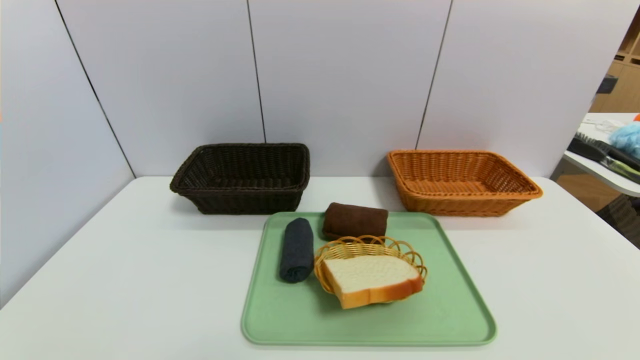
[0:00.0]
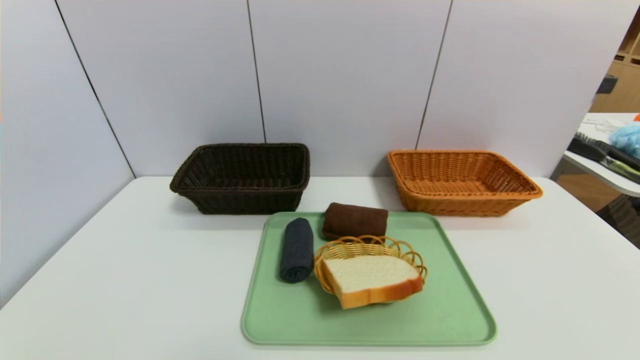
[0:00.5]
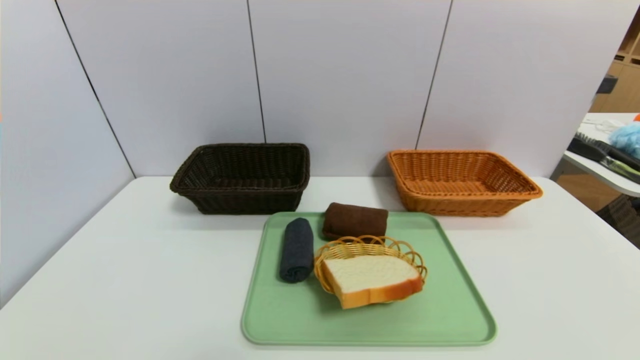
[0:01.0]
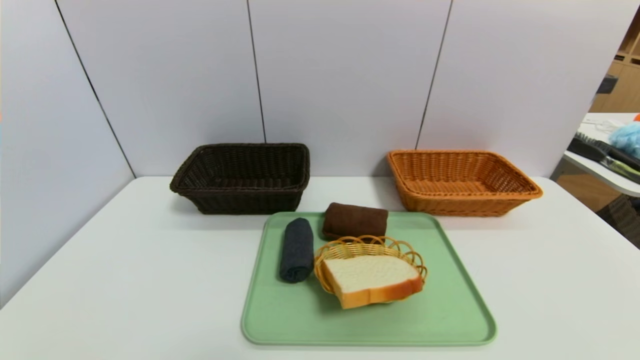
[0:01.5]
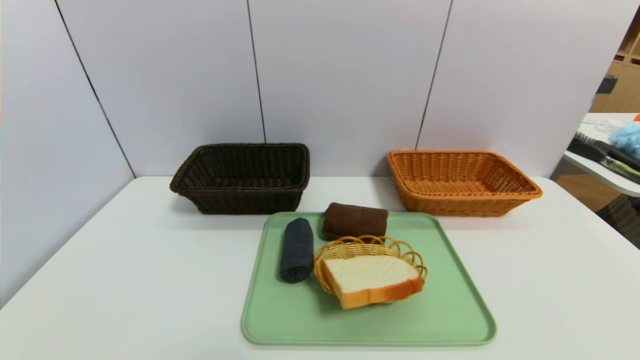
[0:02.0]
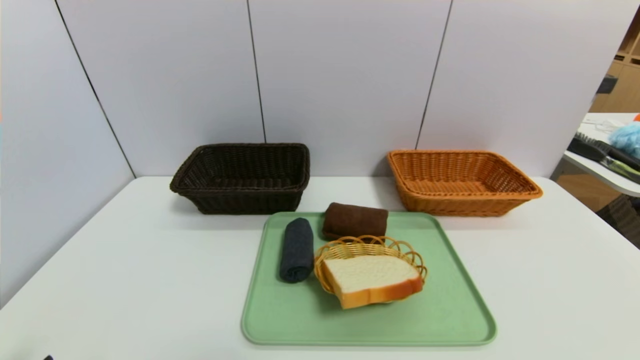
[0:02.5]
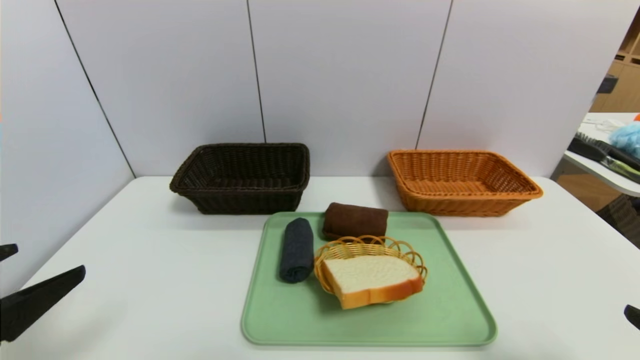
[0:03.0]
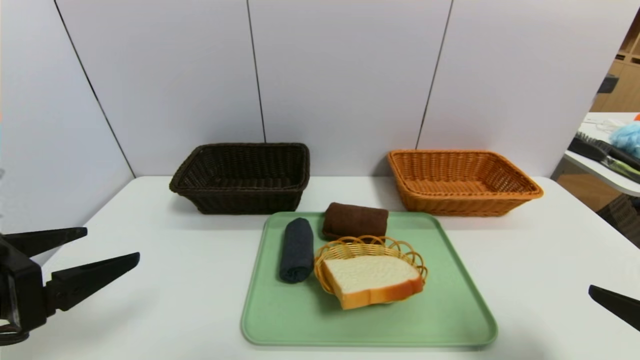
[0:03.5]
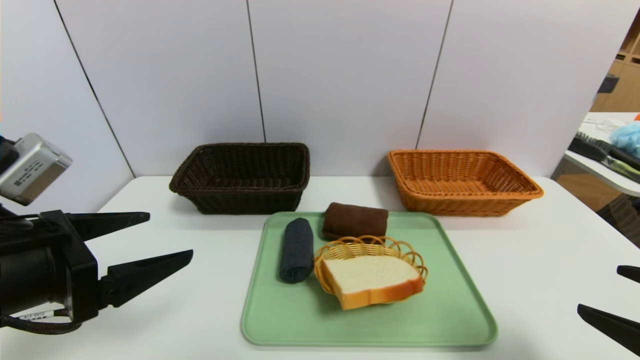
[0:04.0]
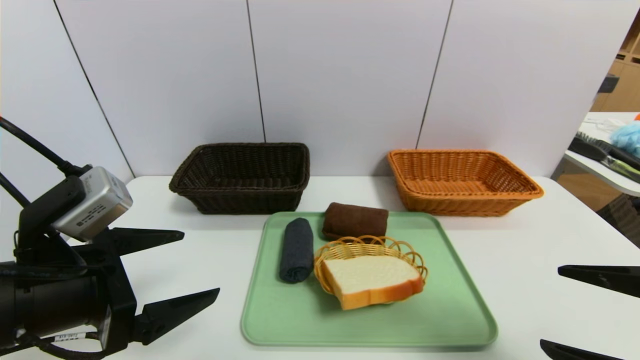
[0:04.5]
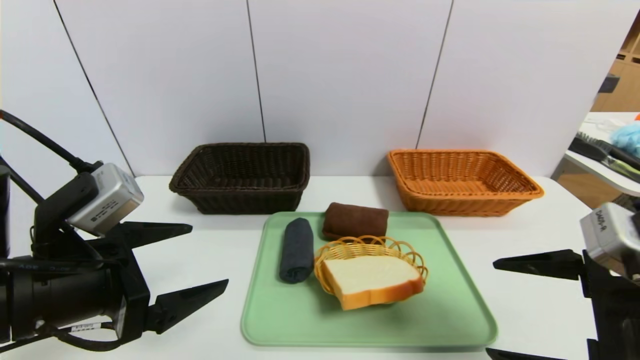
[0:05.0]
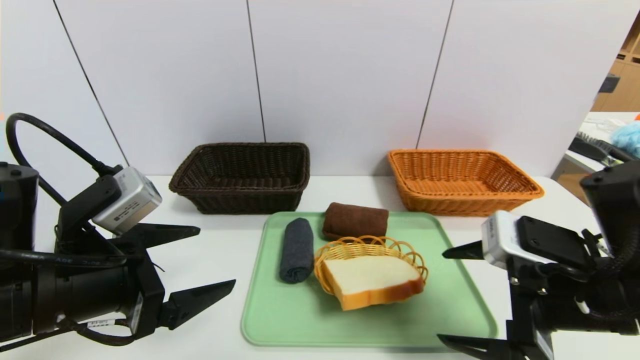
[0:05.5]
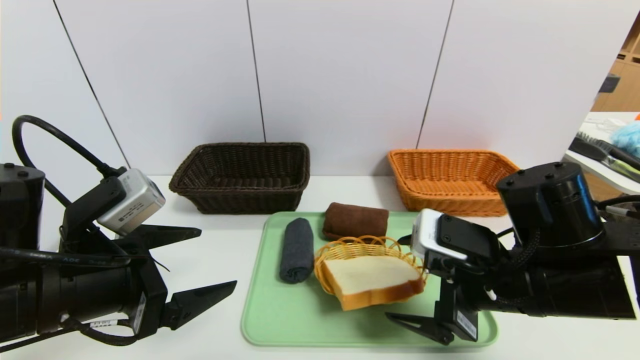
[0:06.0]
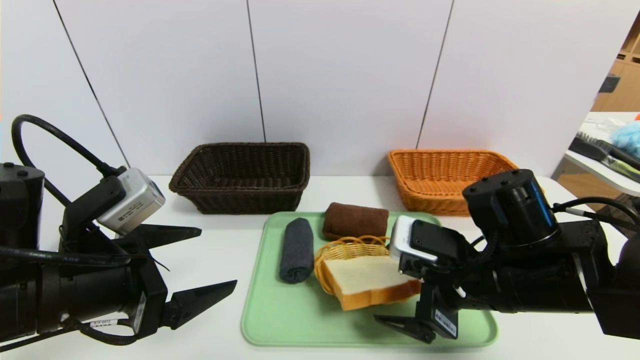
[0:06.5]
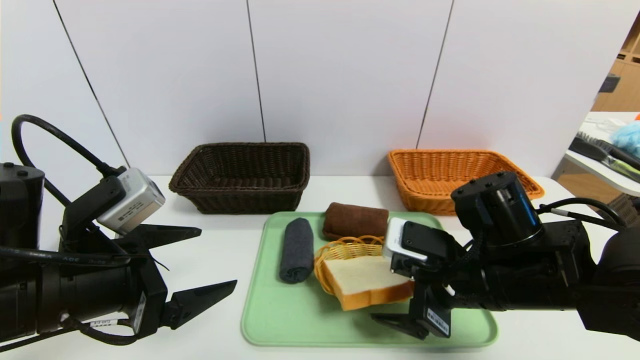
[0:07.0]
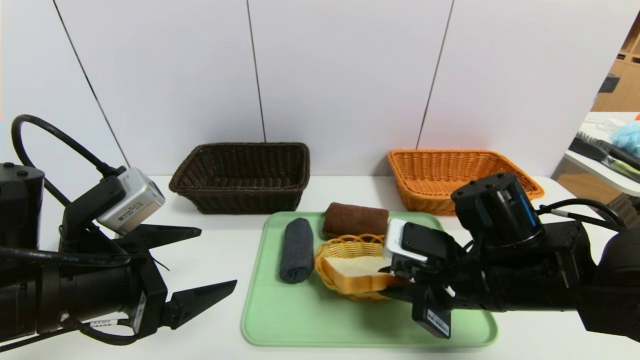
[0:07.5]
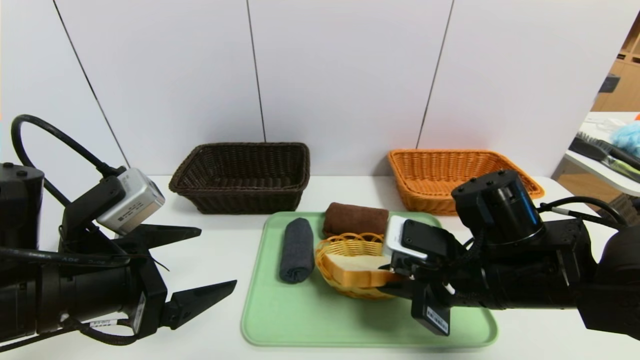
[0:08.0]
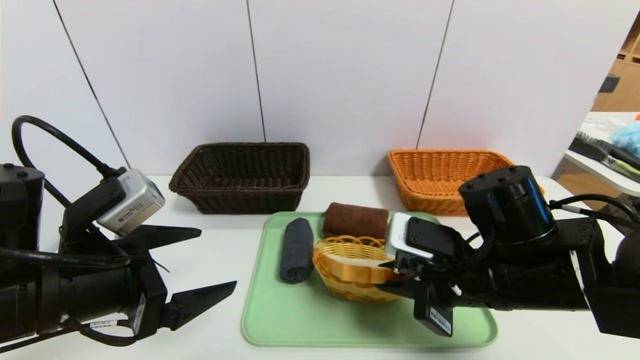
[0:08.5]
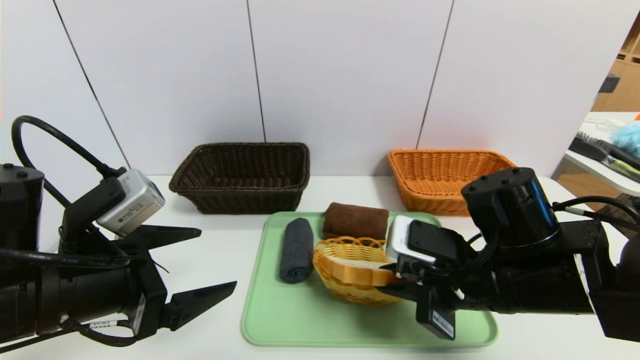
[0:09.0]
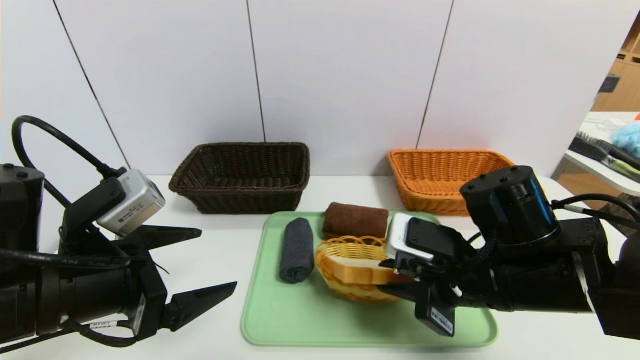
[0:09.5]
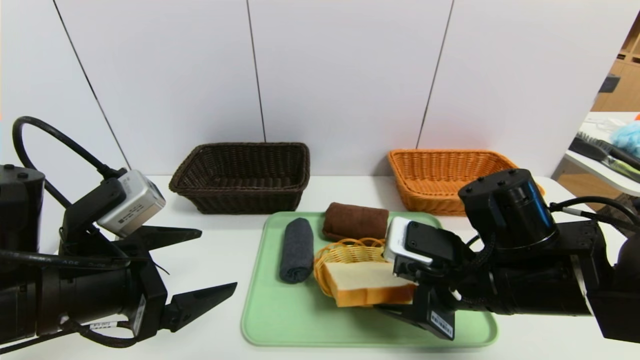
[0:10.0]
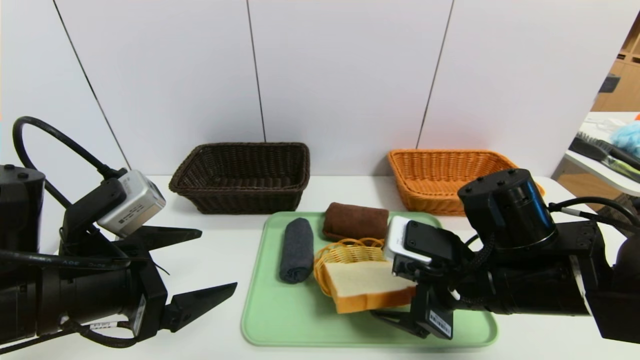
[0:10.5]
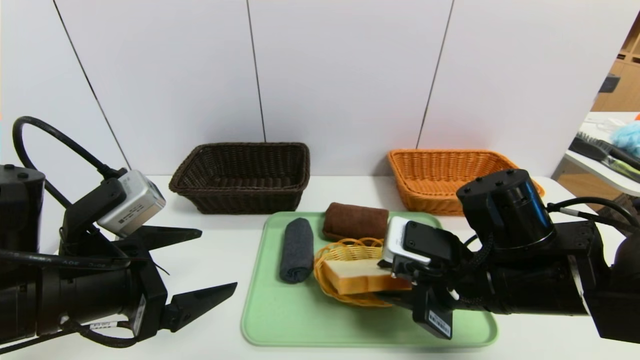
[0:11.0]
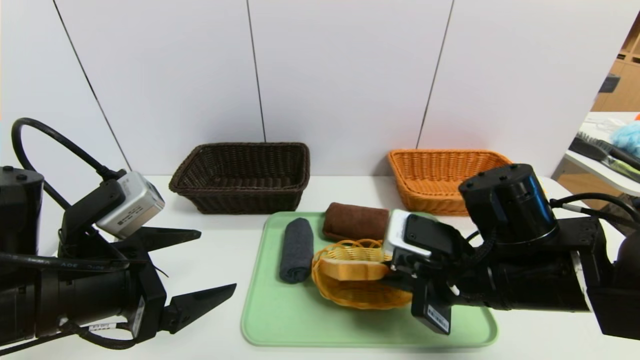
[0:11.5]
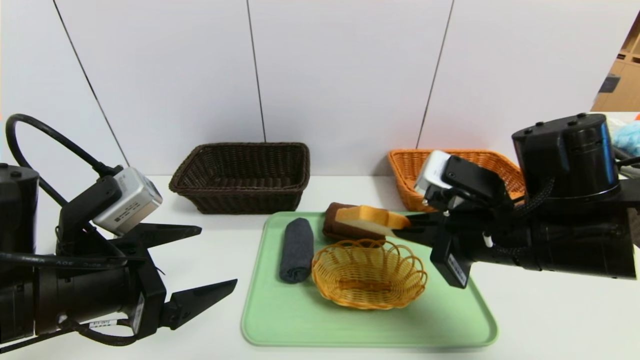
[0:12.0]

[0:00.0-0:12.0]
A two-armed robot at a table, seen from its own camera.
Task of the whole recording: place the food in the right basket with the right gripper, and place the non food items in the left basket with the left gripper.
0:02.0 to 0:04.0: The right gripper is displaced upward and forward by some 15 cm. Meanwhile the left gripper heads forward and upward, covering approximately 20 cm.
0:04.0 to 0:06.0: The right gripper travels to the left and forward by some 20 cm.
0:06.0 to 0:08.0: The right gripper closes.
0:08.0 to 0:10.0: The right gripper opens up.
0:10.0 to 0:12.0: The right gripper is displaced upward by roughly 5 cm, and closes.

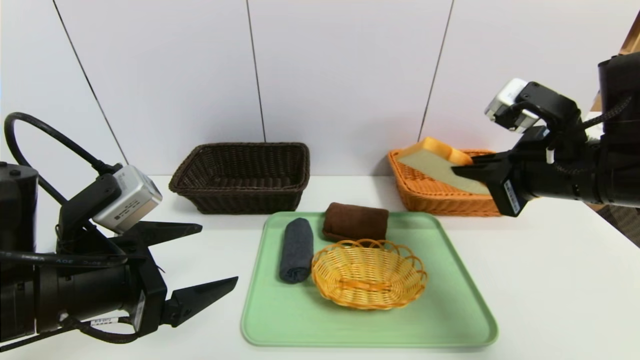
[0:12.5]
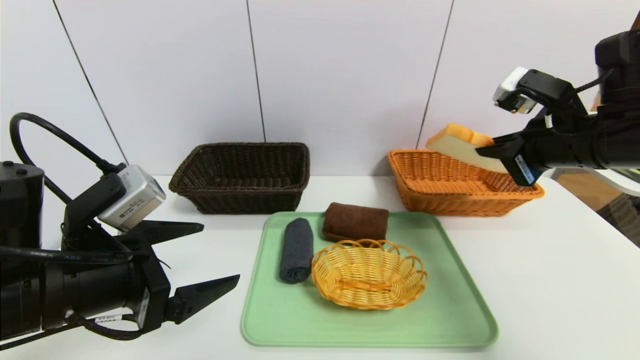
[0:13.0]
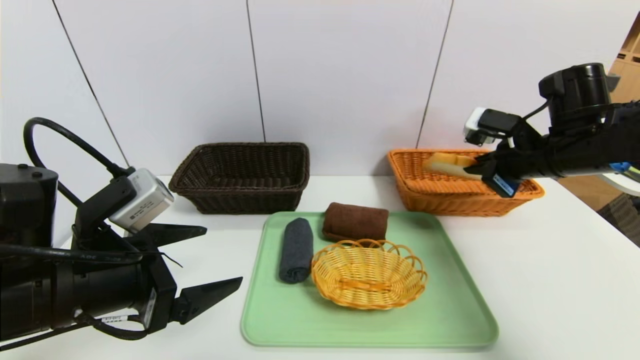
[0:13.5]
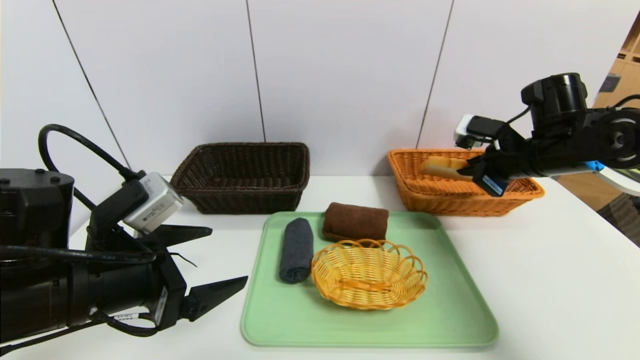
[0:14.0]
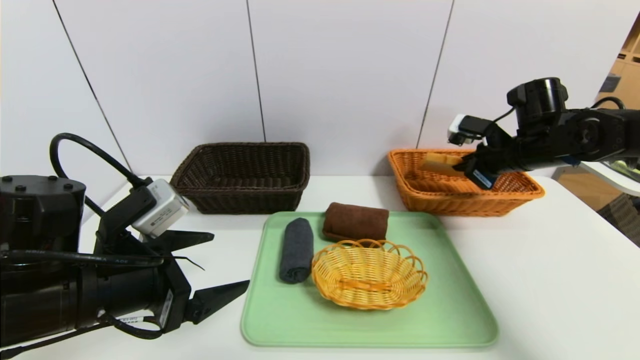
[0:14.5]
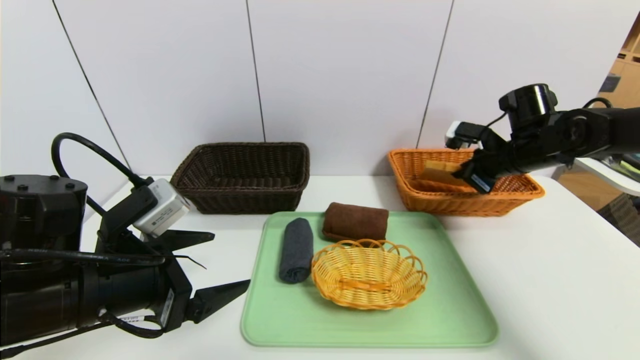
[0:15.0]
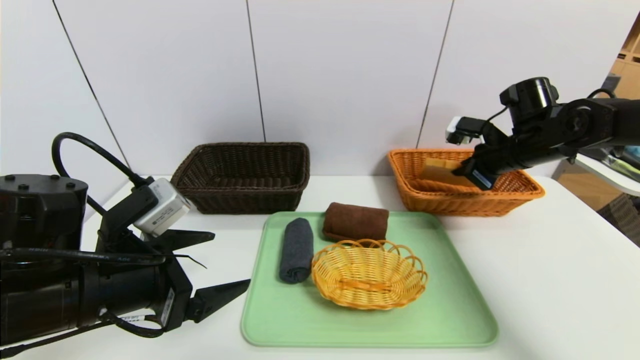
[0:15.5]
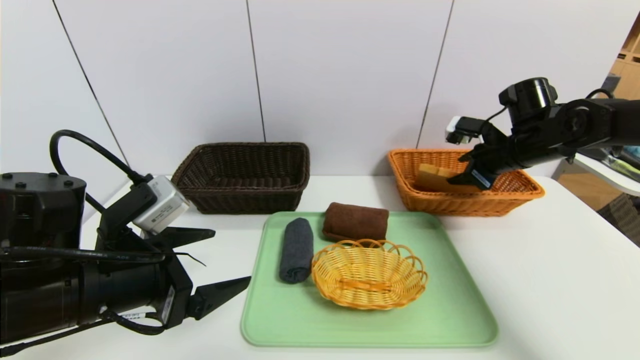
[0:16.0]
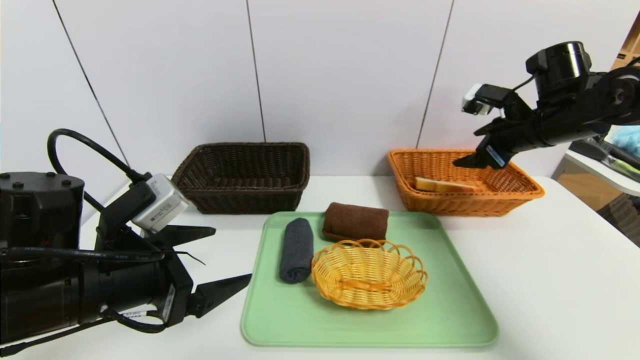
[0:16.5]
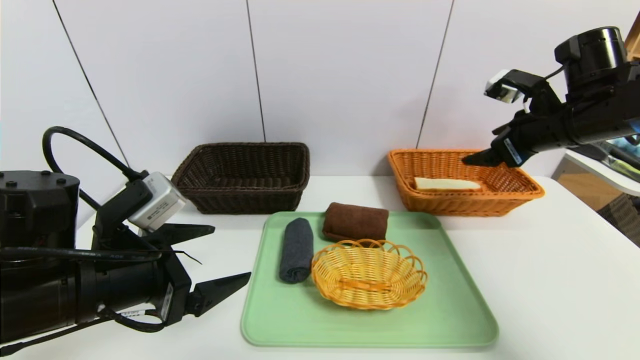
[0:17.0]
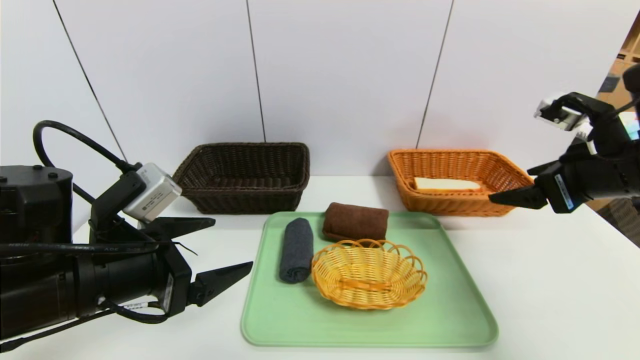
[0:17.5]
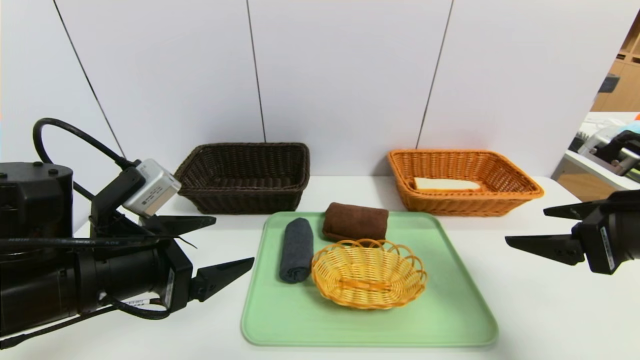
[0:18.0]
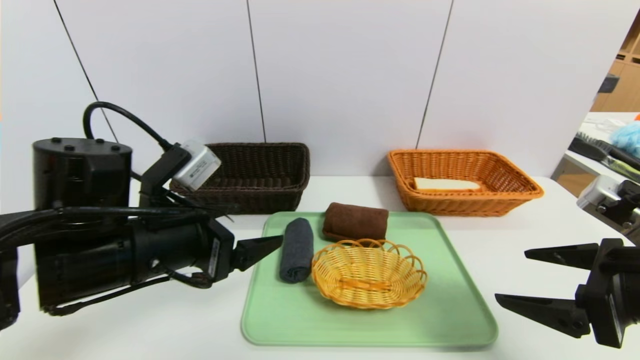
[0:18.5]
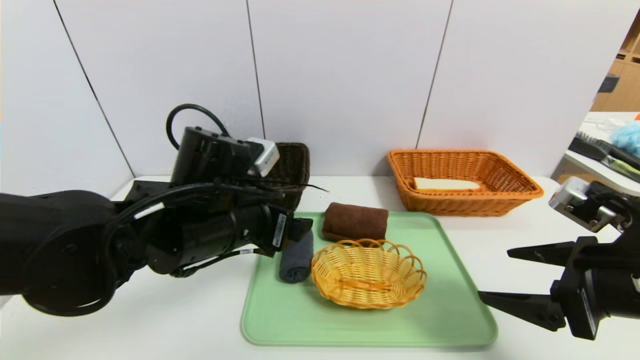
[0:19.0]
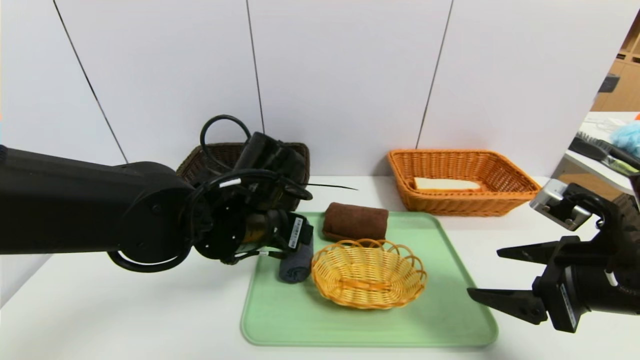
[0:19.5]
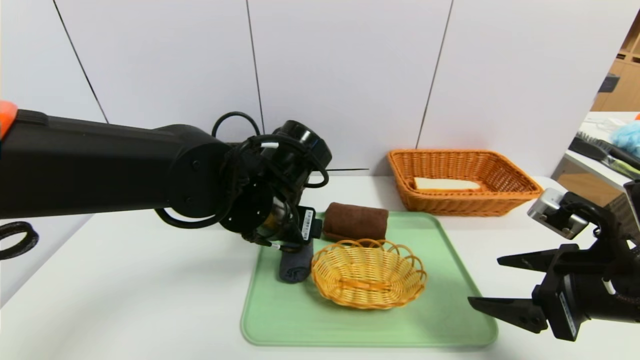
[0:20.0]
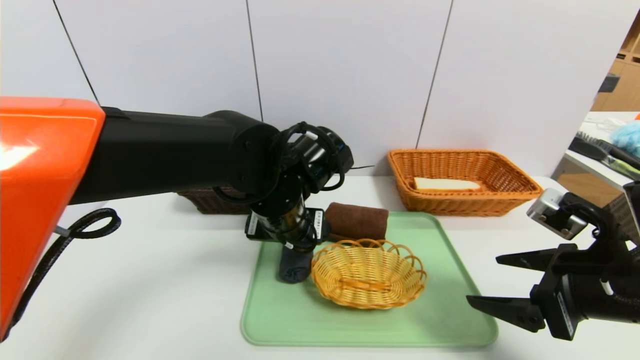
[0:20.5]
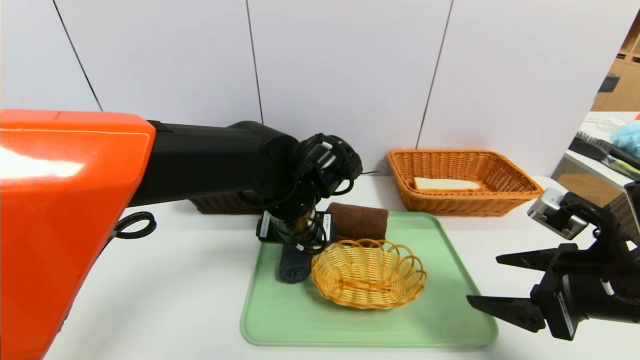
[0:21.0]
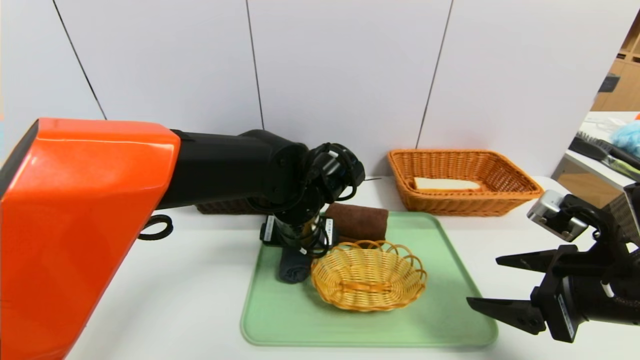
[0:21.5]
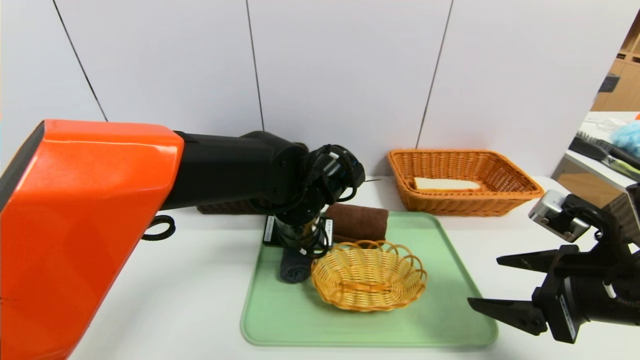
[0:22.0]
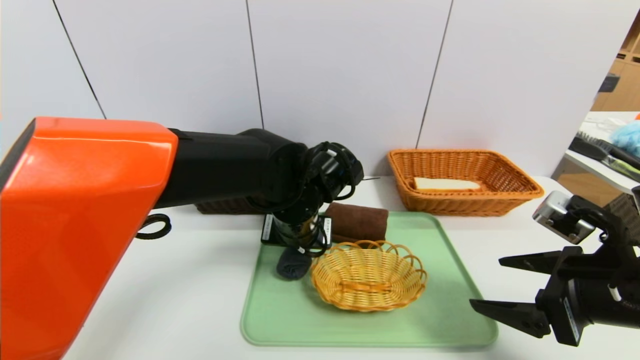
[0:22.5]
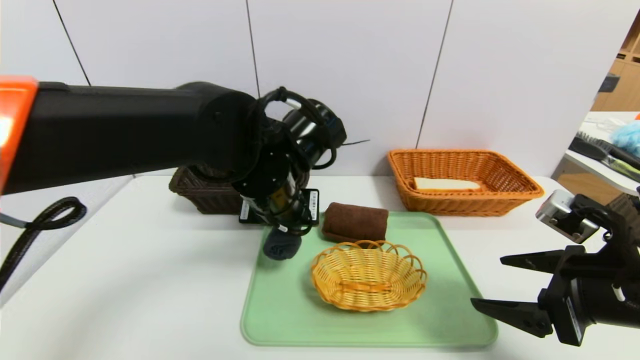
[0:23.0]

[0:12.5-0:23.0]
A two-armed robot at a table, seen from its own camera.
Task of the whole recording: place the food in the right basket with the right gripper, and place the non food items in the left basket with the left gripper.
Step, 0:12.5 to 0:16.0: Grasp the bread slice and put it in the right basket.
0:12.5 to 0:14.5: The right gripper goes about 15 cm forward.
0:14.5 to 0:16.5: The right gripper shifts about 5 cm upward, and opens its fingers.
0:16.5 to 0:19.0: The right gripper shifts some 20 cm backward. Meanwhile the left gripper travels to the right and forward by roughly 10 cm.
0:19.0 to 0:21.0: The left gripper moves to the right and forward, approximately 10 cm.
0:21.0 to 0:23.0: The left gripper moves approximately 5 cm, and closes.
